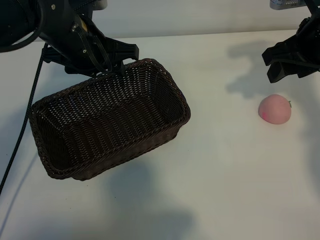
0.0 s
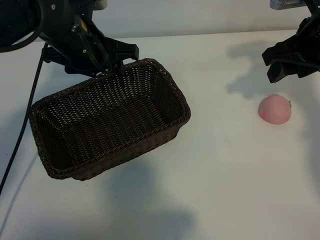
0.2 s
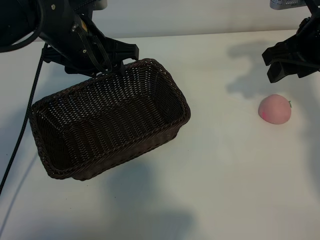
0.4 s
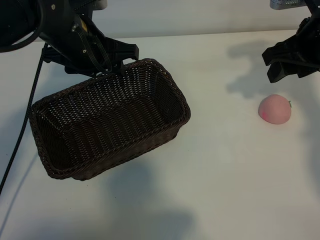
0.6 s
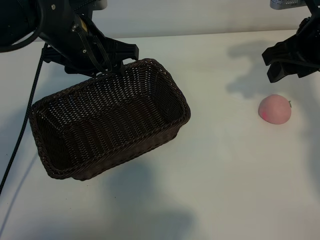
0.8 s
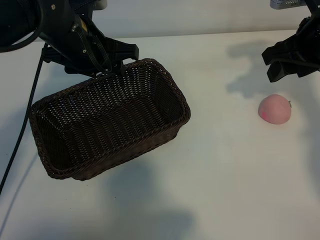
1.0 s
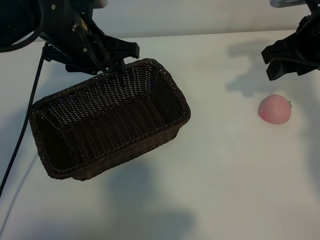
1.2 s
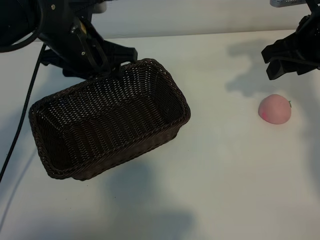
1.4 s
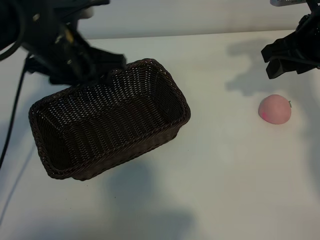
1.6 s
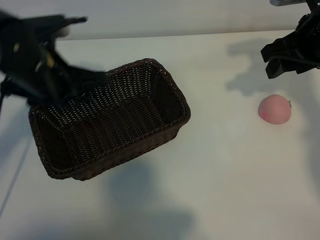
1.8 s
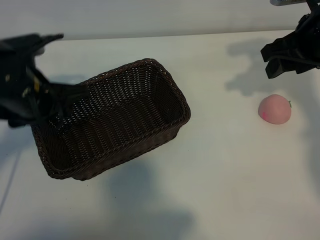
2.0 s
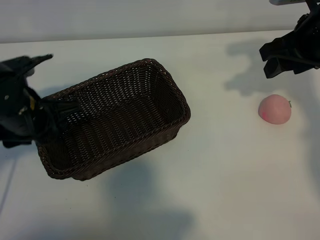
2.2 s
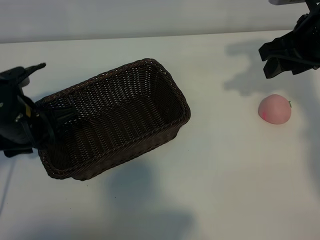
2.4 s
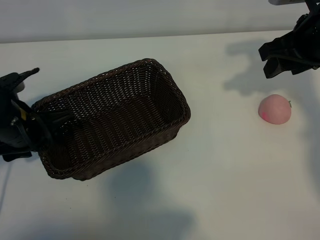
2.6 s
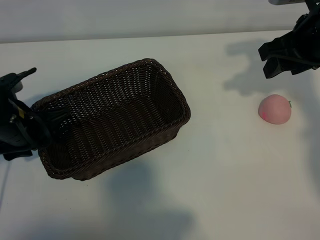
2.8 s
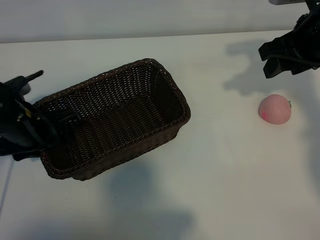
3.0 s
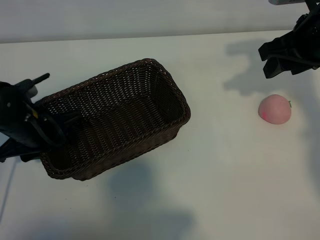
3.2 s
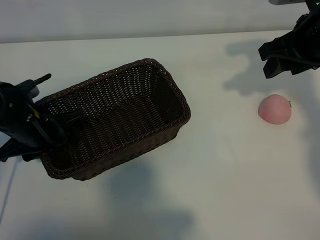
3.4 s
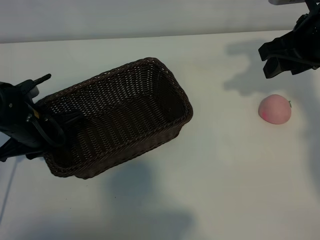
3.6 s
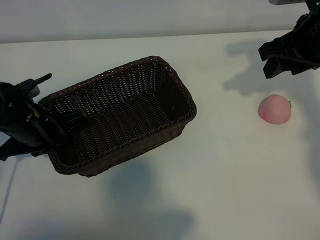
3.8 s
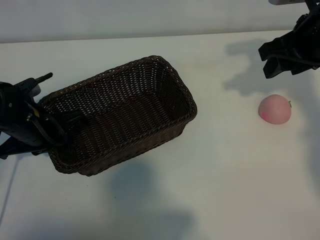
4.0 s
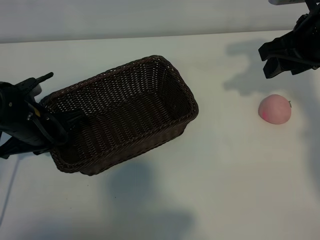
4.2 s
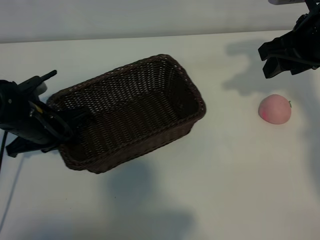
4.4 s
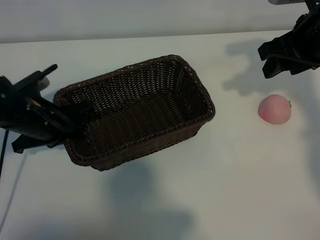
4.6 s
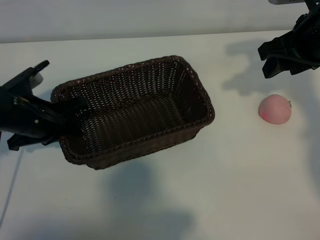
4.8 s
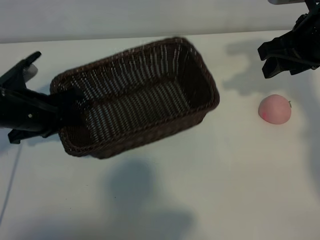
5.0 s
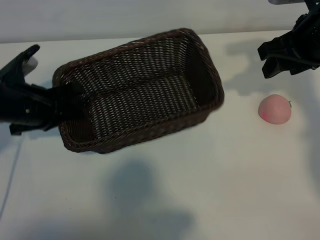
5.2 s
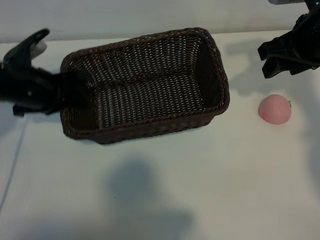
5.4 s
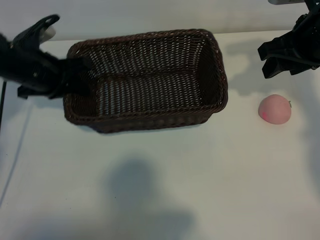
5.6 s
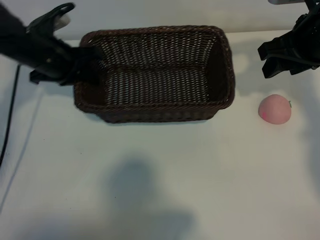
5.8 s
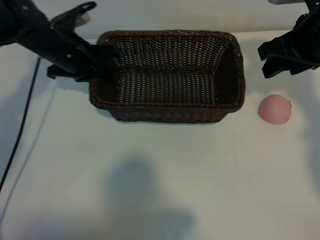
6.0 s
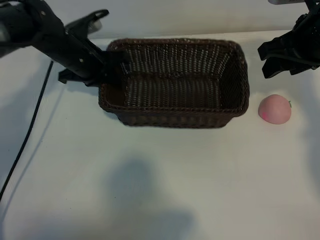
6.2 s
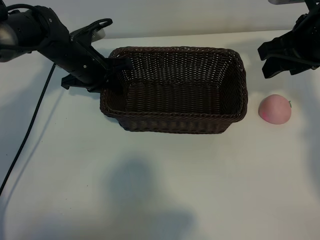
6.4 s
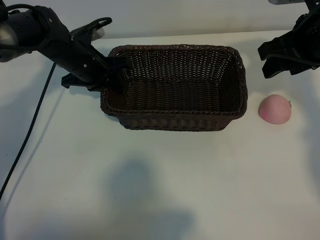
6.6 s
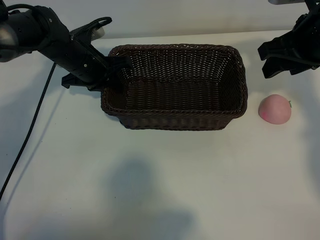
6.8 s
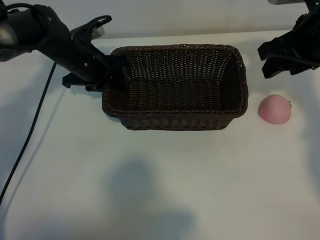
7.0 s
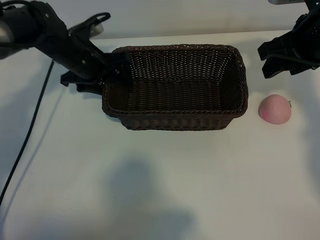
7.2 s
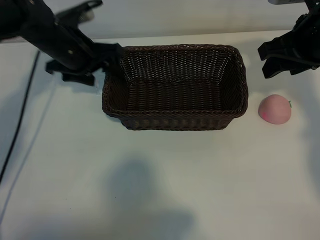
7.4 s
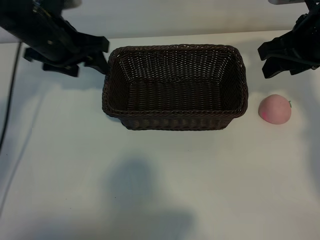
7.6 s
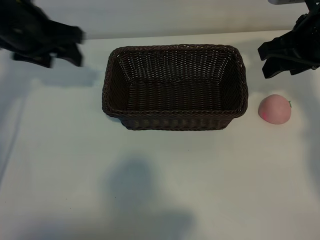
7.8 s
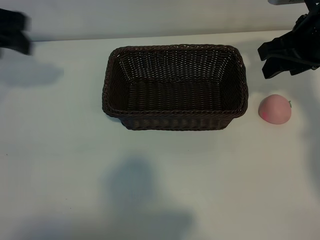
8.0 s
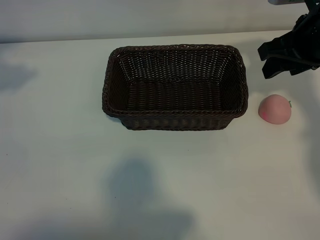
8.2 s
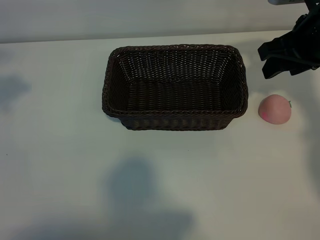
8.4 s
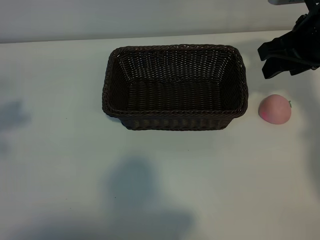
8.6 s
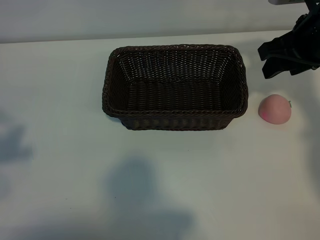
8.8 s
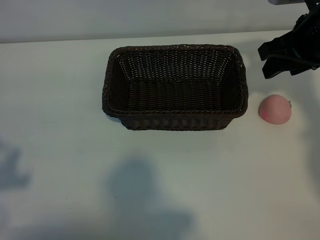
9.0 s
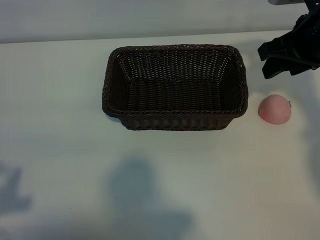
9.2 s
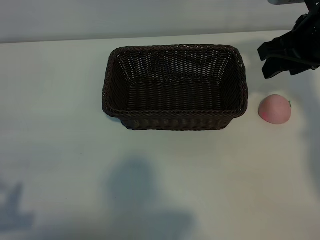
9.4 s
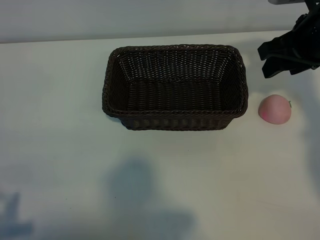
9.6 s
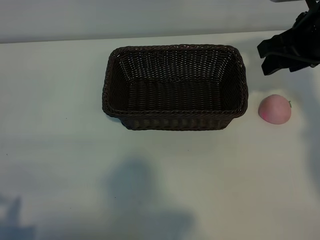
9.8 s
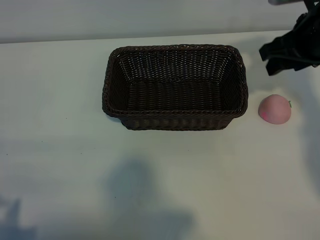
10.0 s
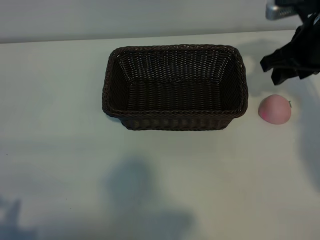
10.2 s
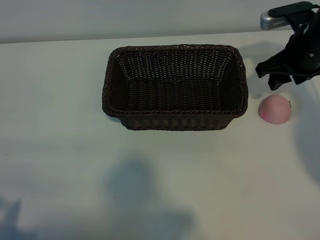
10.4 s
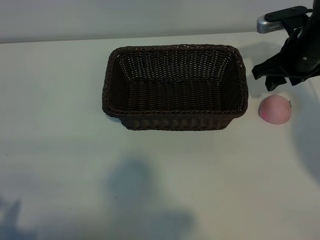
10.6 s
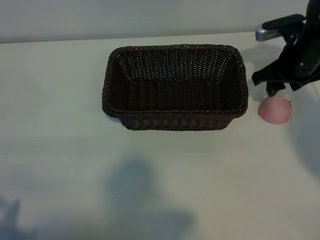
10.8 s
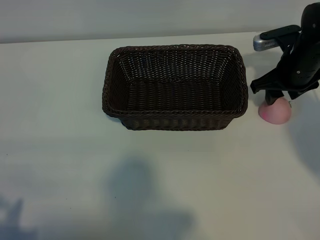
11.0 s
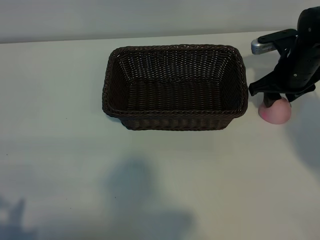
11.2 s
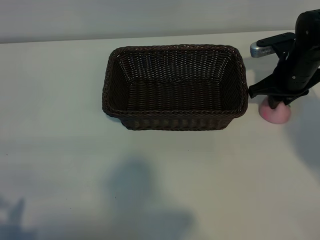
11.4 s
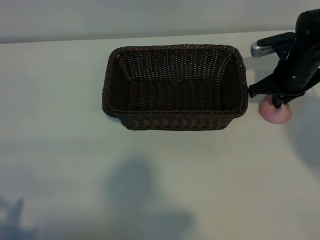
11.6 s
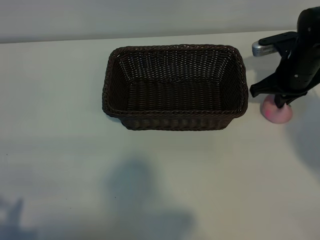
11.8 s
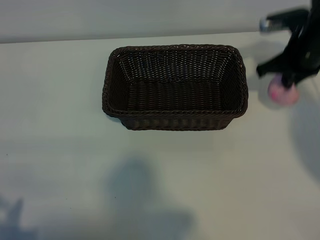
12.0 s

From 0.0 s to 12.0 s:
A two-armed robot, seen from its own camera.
Task of the whole recording: pick up the peach and put it into the basket.
Step, from 1.2 s to 4.0 s: Grasp the basket with left gripper.
Step, from 4.2 s to 7.2 s: Place the basket in the center of view with left gripper.
Step, from 7.6 s to 11.6 s: Grasp the peach with right gripper.

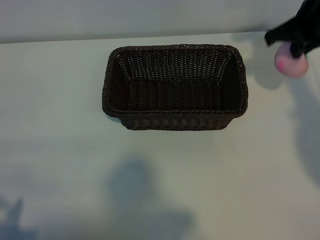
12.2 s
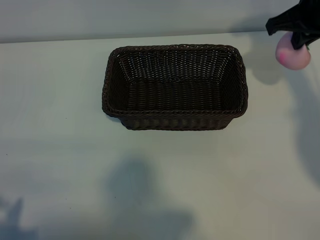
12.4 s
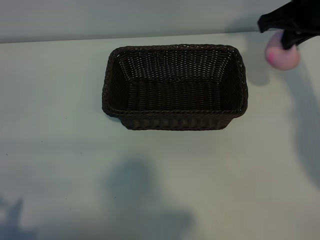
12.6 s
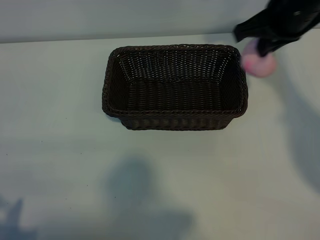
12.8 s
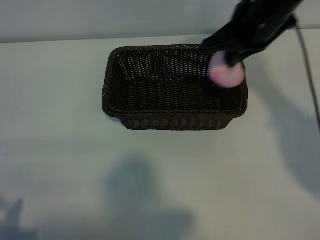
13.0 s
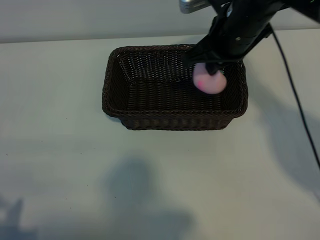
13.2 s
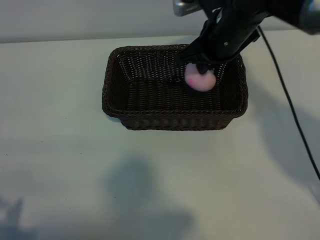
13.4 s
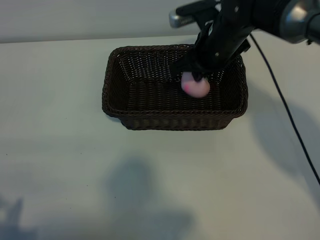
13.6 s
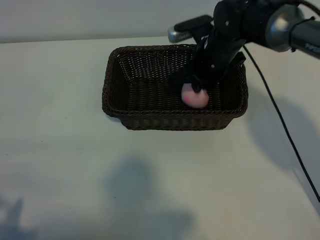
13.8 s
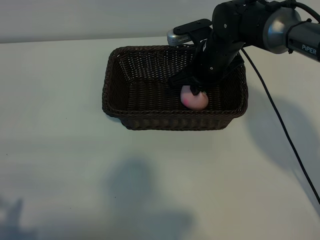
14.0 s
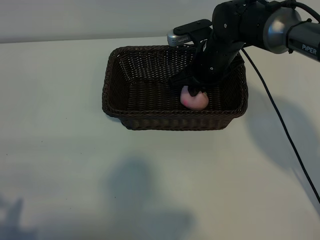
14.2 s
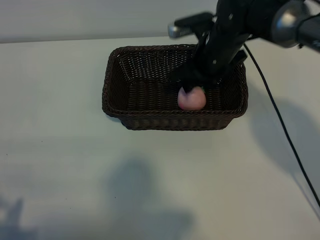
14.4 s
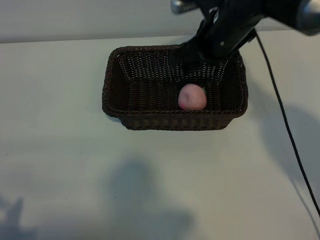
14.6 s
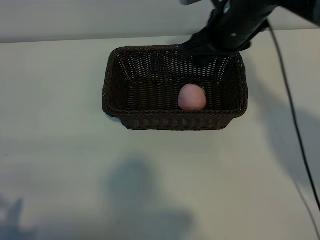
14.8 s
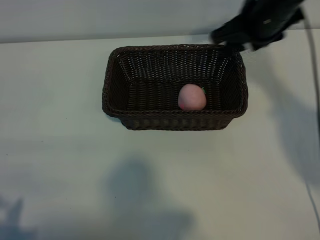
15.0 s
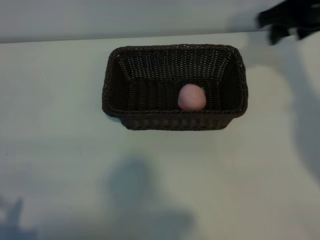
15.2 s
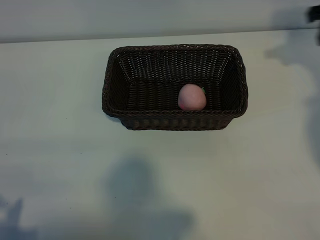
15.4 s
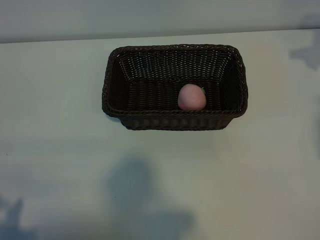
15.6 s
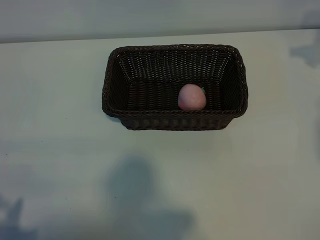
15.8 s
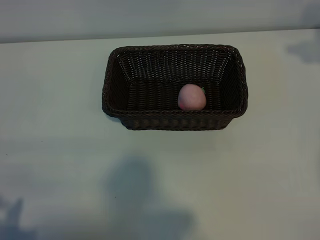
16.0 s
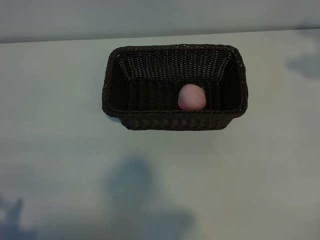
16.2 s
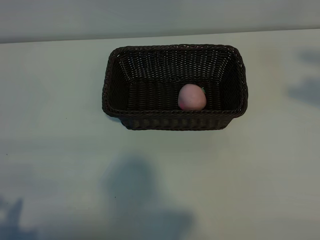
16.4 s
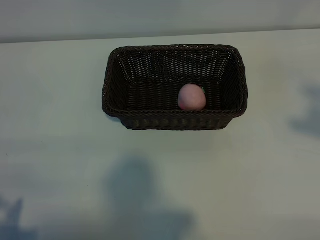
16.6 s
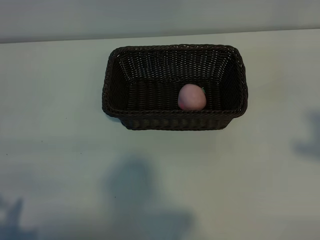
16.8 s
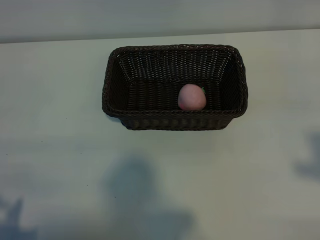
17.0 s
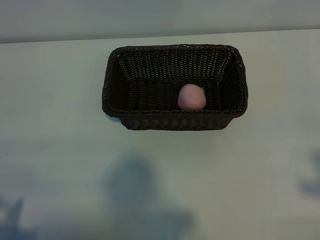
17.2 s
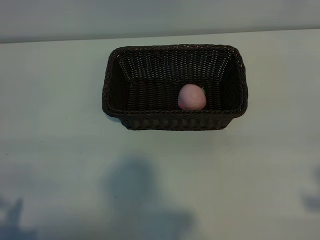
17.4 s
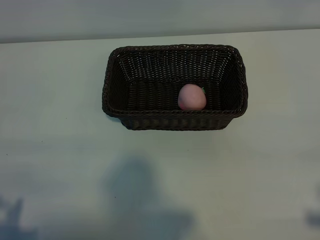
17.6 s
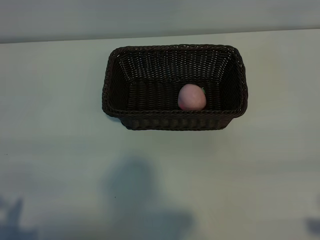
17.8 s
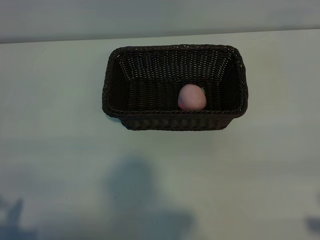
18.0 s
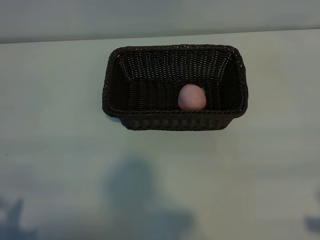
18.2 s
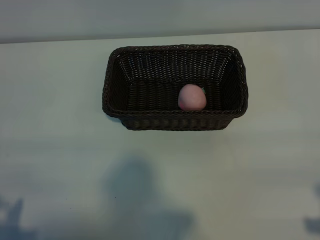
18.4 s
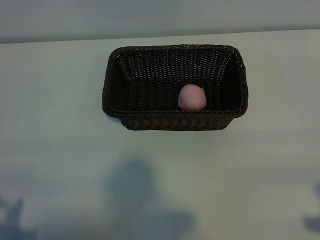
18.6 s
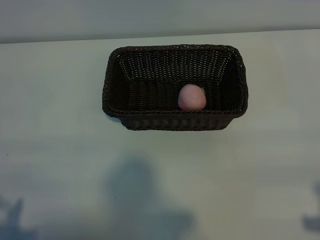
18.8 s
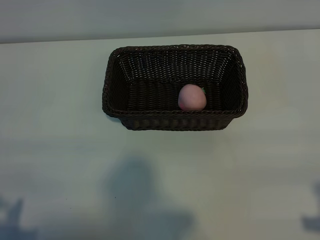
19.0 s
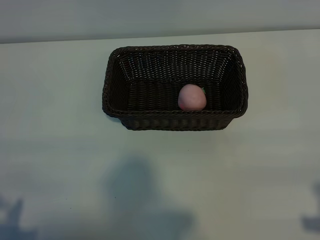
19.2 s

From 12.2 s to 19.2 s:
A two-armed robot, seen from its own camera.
Task of the whole recording: pick up the peach and put it into the basket.
Step, from 12.2 s to 14.4 s: Place the peach in the basket with right gripper.

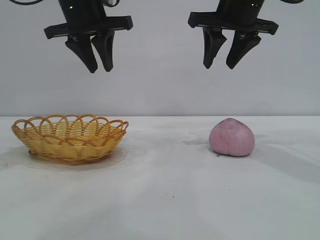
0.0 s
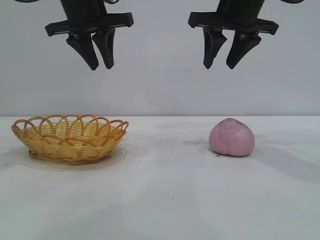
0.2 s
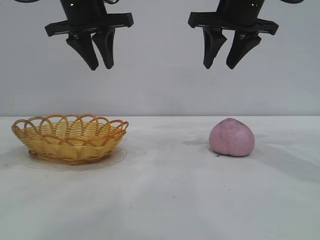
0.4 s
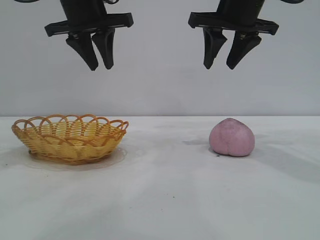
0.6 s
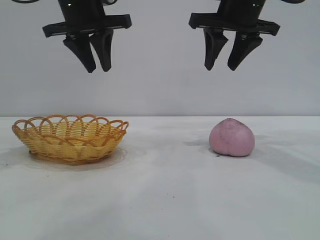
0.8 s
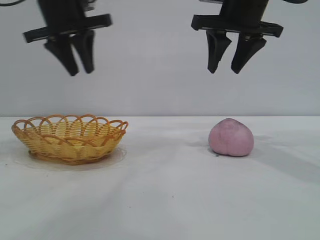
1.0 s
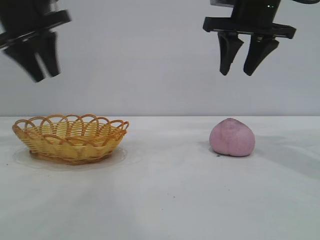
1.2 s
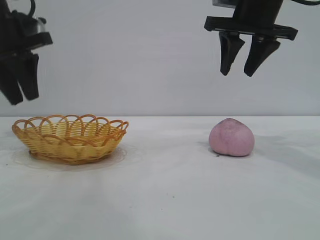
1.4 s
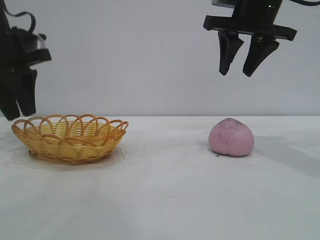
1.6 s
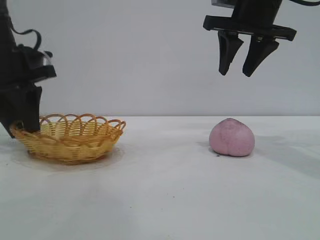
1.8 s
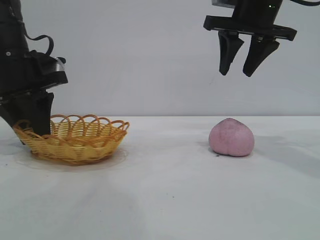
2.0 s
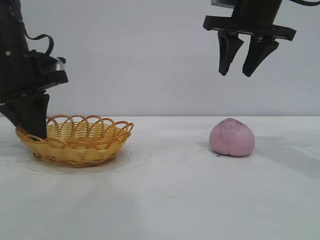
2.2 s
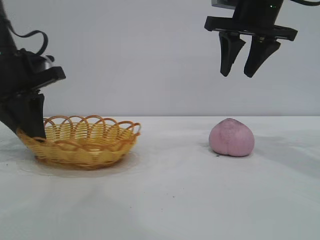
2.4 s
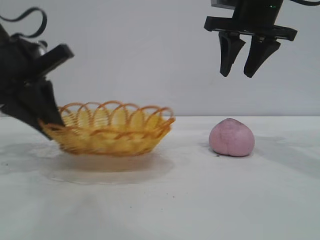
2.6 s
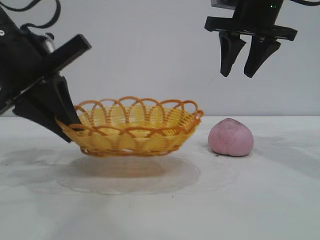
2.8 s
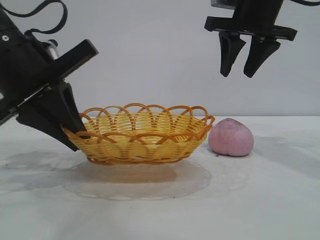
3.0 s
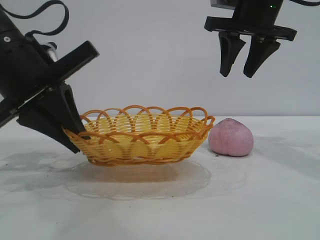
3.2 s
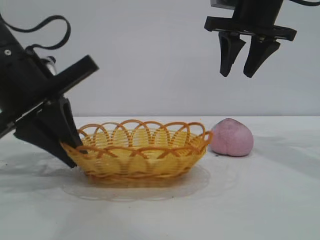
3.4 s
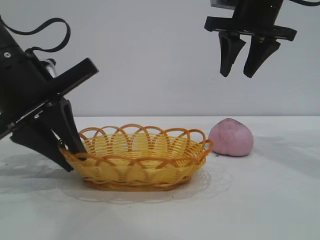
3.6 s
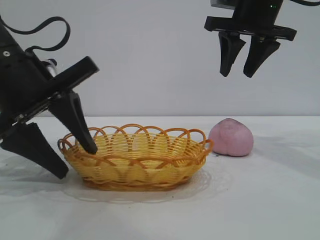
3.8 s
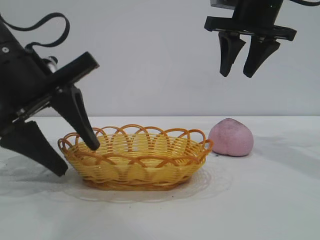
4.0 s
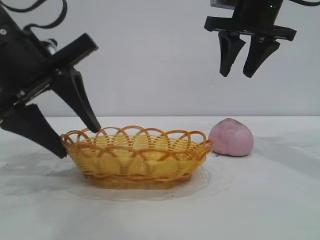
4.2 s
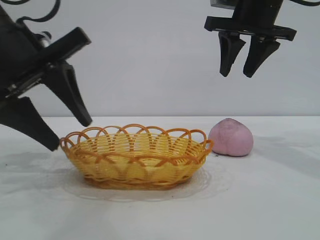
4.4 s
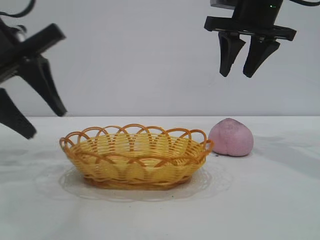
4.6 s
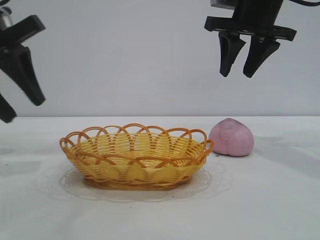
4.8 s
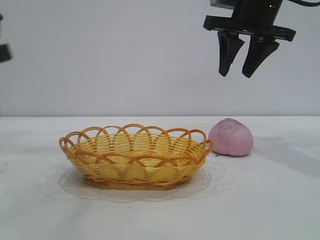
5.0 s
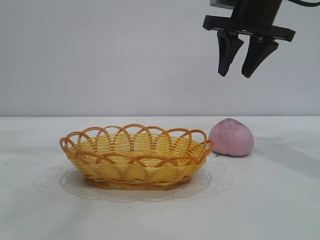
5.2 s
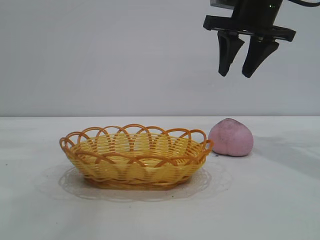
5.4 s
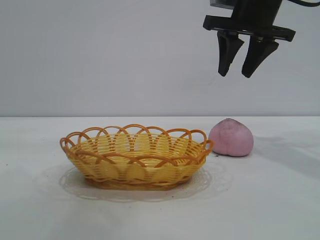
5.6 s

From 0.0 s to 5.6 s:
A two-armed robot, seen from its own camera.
Task of the whole recording: pick up the peach and put it into the basket.
Step, from 0.0 s to 4.8 s: Move the basket to the center of view.
